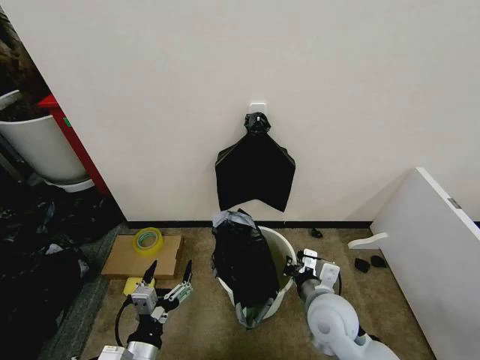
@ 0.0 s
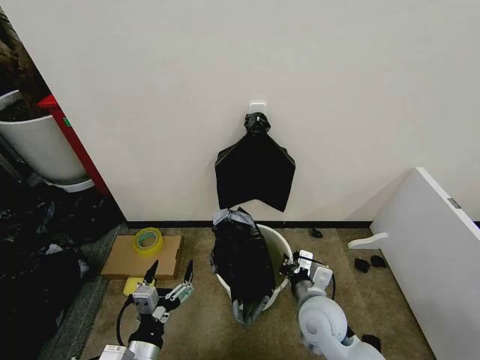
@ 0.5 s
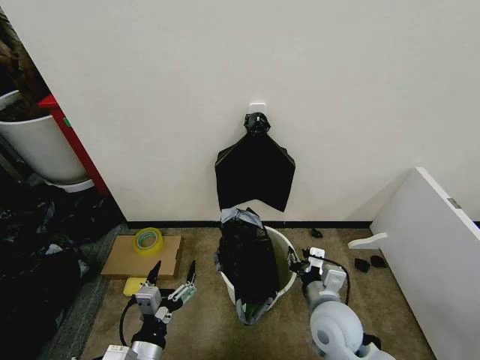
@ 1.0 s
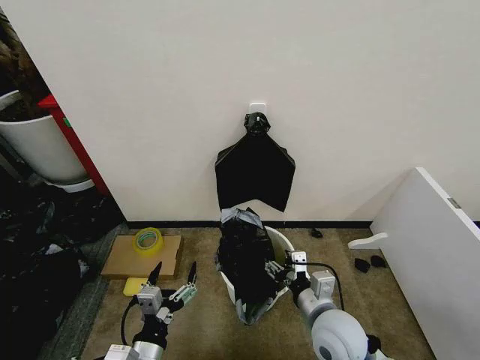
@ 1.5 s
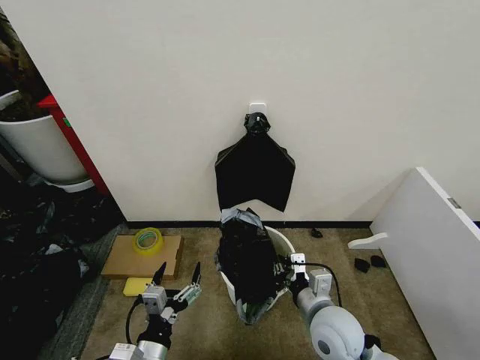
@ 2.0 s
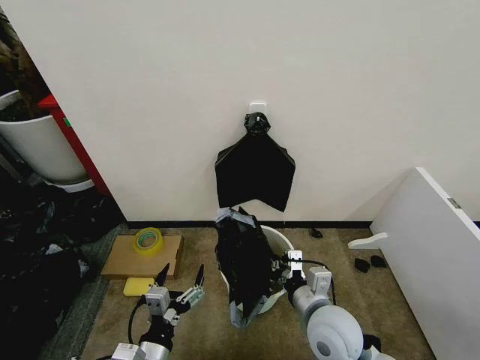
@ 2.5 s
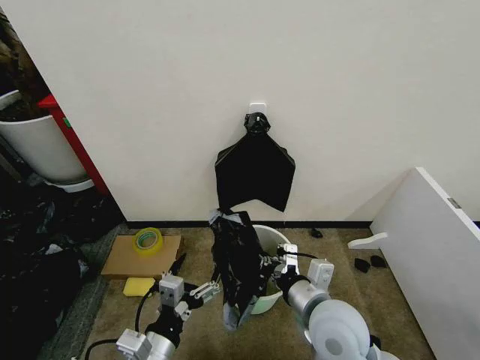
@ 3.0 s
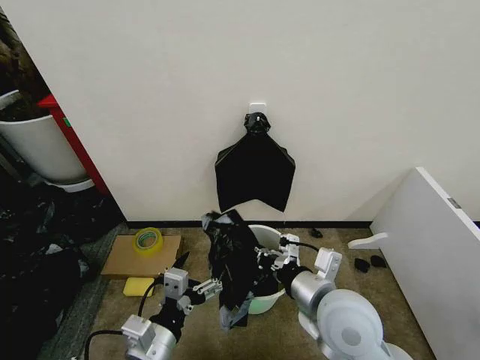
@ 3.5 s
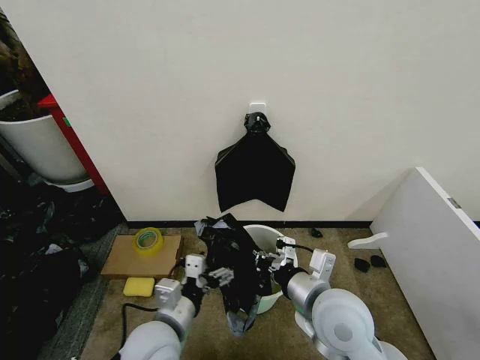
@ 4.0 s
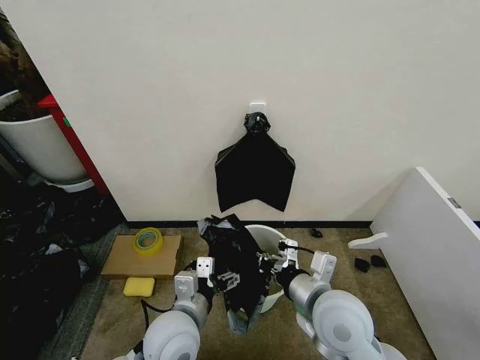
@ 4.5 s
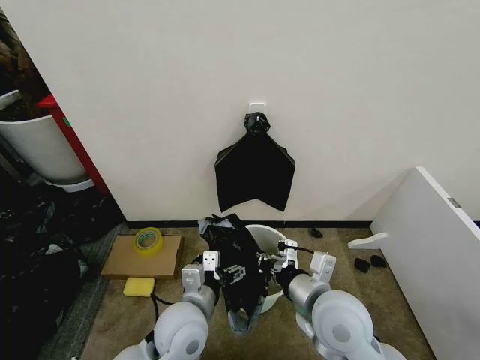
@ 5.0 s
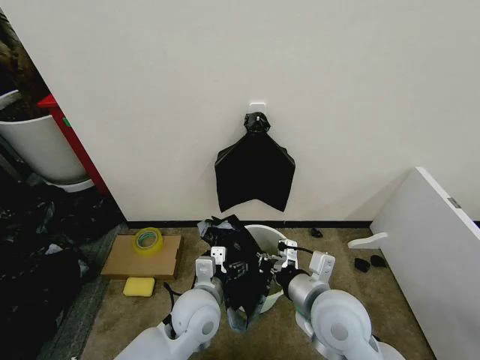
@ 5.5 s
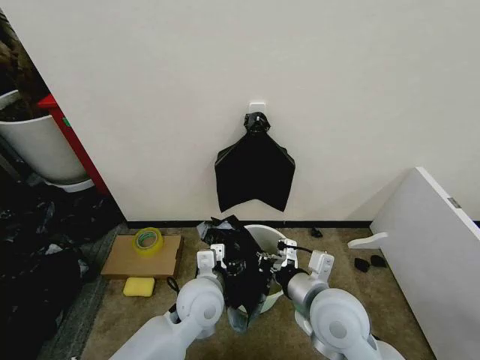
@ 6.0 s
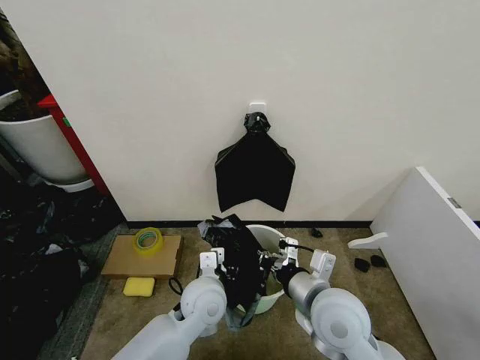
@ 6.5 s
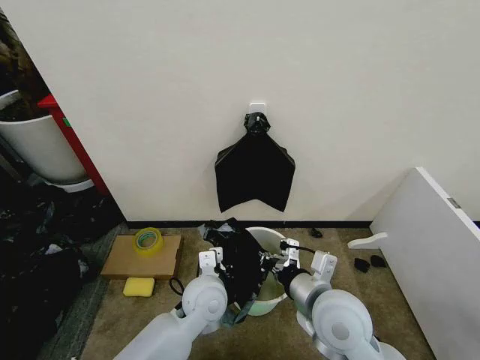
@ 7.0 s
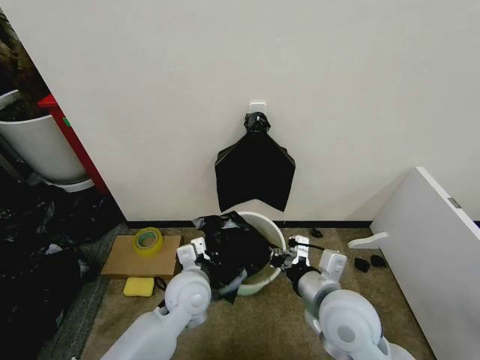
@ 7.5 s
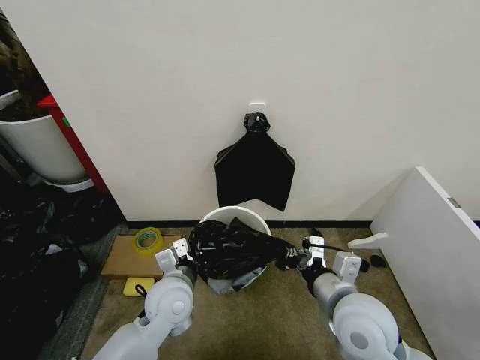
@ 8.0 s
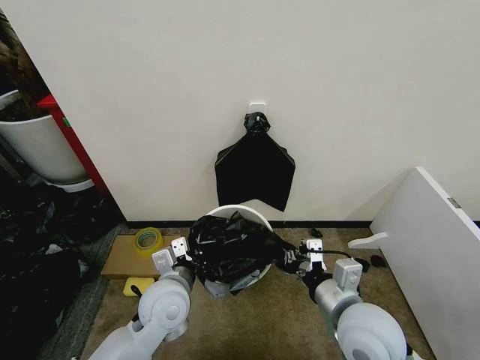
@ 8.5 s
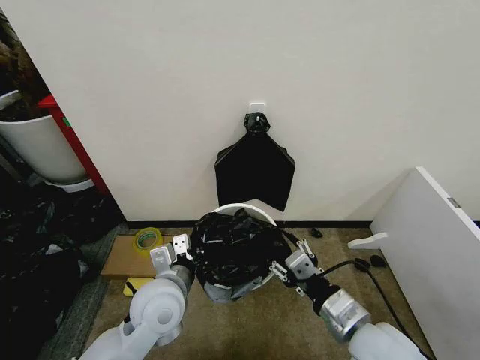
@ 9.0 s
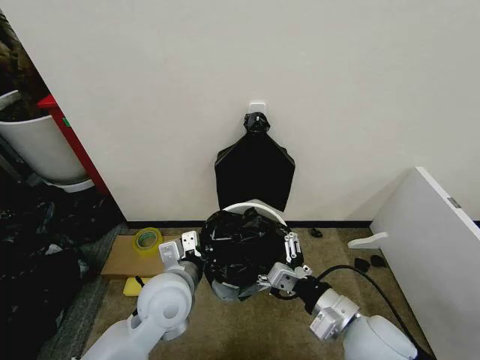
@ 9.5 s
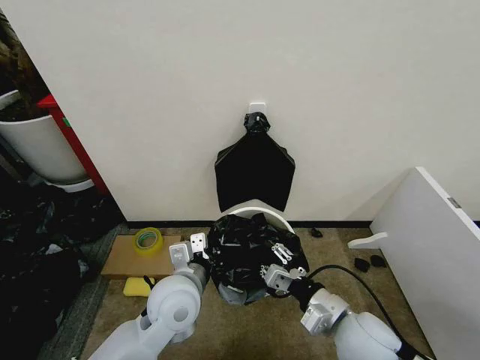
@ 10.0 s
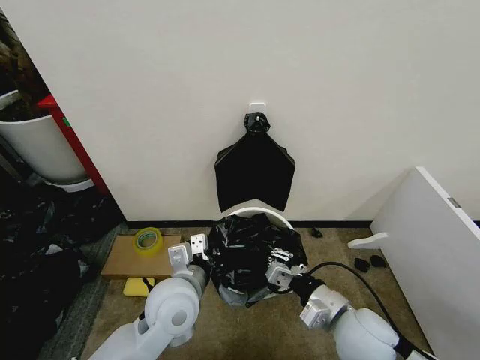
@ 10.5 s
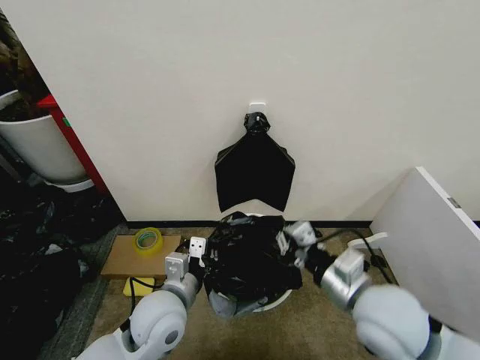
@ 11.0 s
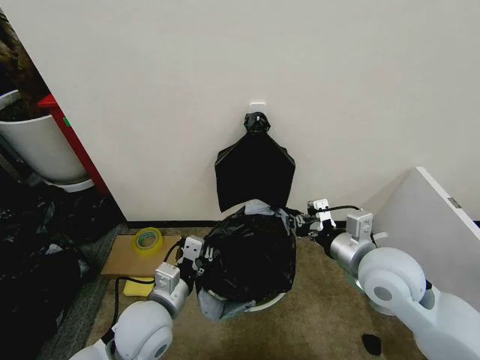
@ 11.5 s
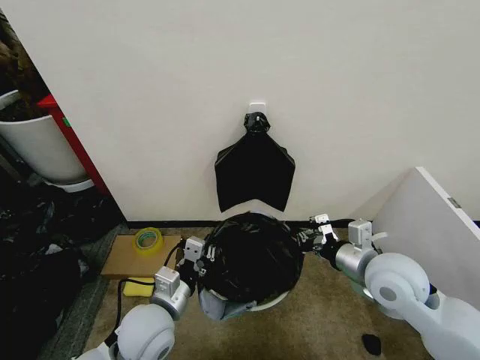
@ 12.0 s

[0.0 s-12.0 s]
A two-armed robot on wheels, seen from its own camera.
Task of the whole recording: Place the garbage bag over the trash bin.
0.0 to 2.0 s: The right gripper opens, then closes again.
2.0 to 4.0 s: The left gripper is displaced forward and upward by about 10 cm; the right gripper is displaced upward by some 10 cm.
4.0 to 6.0 s: The left gripper moves forward and to the right, about 10 cm.
6.0 to 8.0 s: The left gripper is displaced to the left by about 5 cm, and closes its fingers.
8.0 to 10.0 s: The left gripper changes place by about 5 cm; the right gripper opens up.
10.0 to 12.0 s: The right gripper shifts roughly 10 cm forward, upward and to the right, while the left gripper travels to the left by about 5 cm.

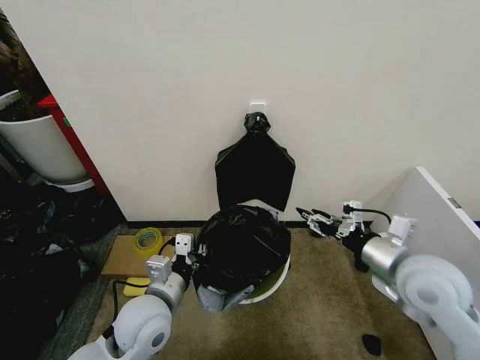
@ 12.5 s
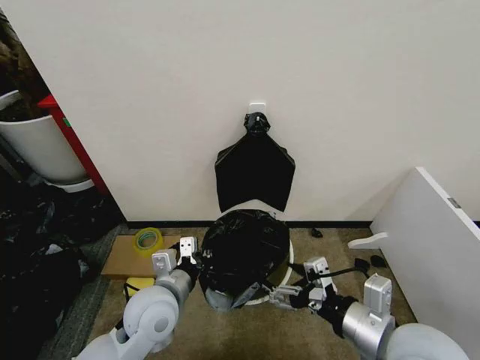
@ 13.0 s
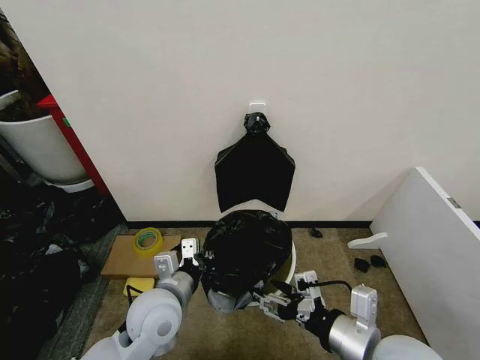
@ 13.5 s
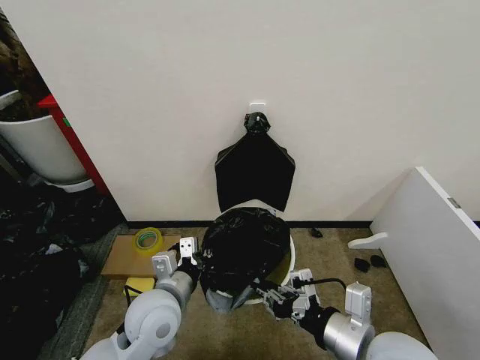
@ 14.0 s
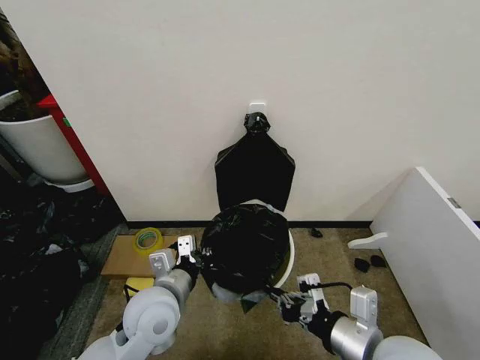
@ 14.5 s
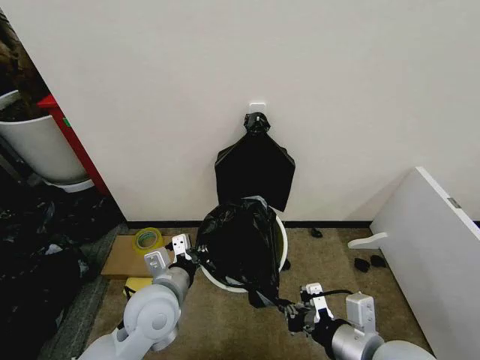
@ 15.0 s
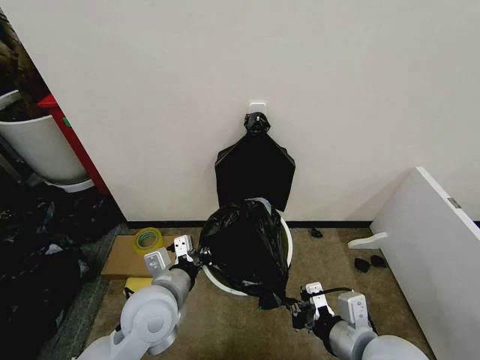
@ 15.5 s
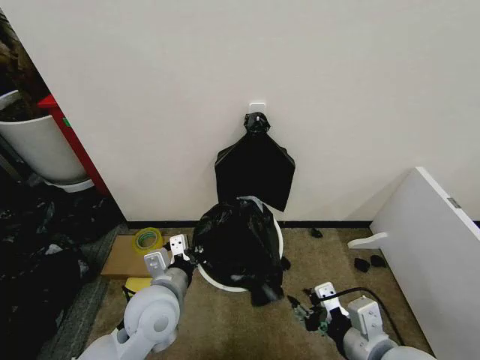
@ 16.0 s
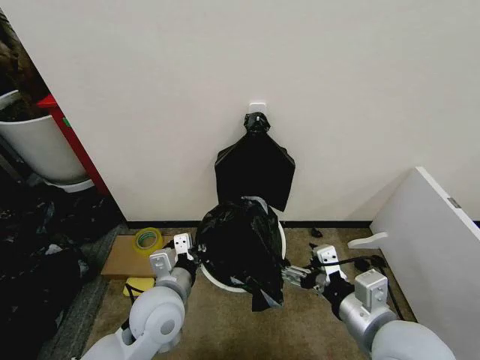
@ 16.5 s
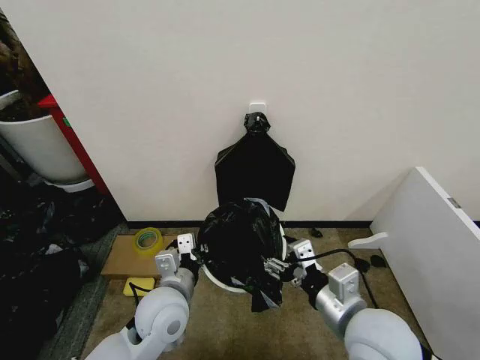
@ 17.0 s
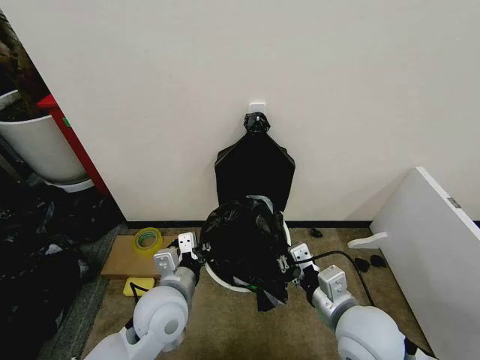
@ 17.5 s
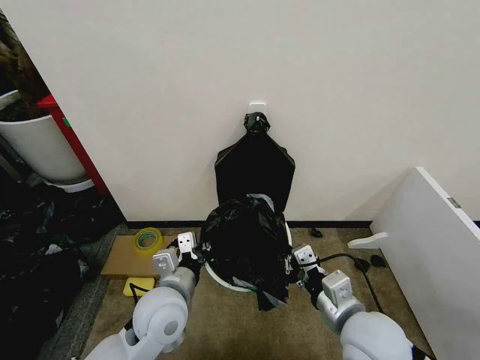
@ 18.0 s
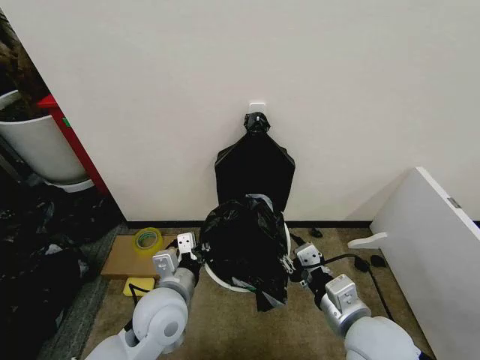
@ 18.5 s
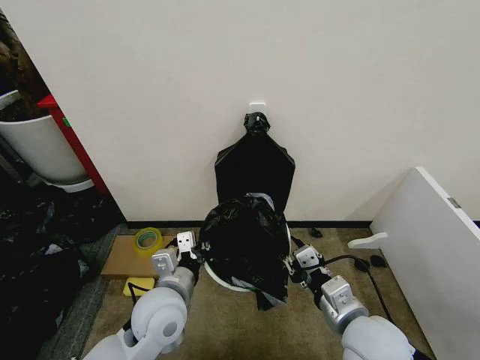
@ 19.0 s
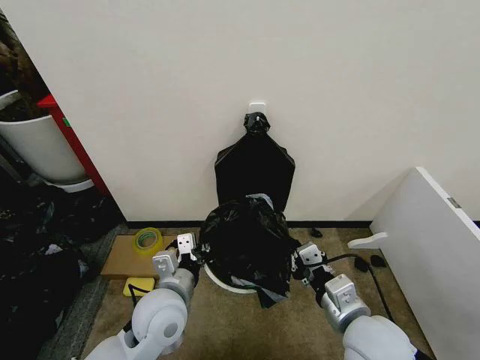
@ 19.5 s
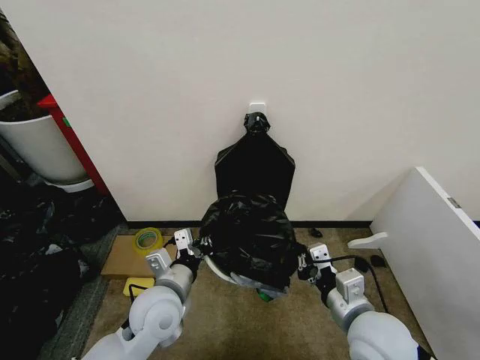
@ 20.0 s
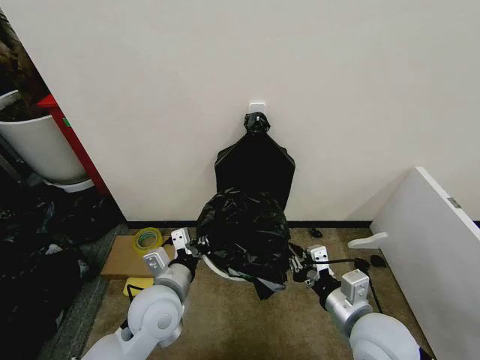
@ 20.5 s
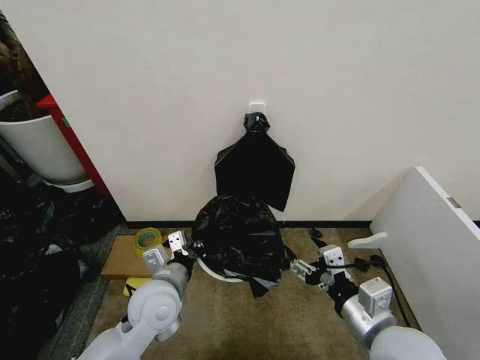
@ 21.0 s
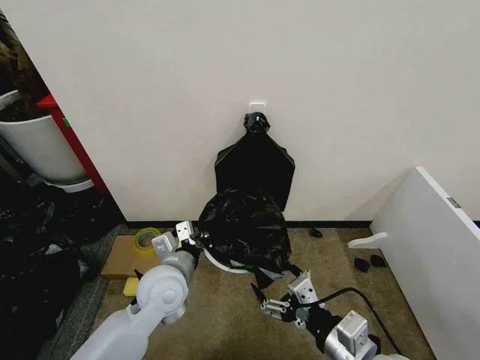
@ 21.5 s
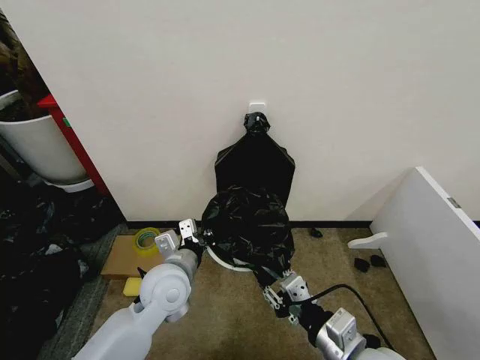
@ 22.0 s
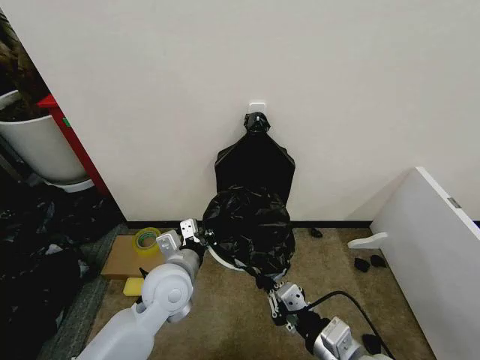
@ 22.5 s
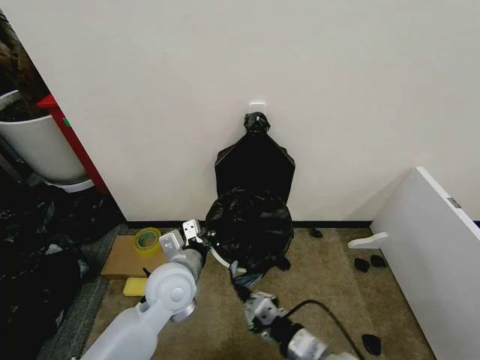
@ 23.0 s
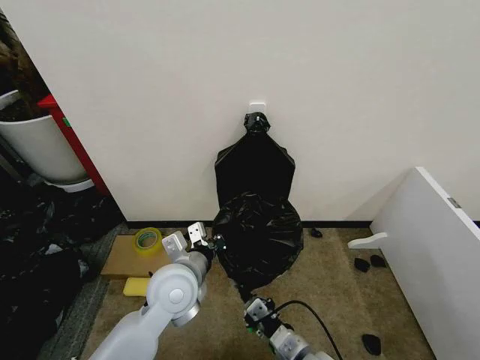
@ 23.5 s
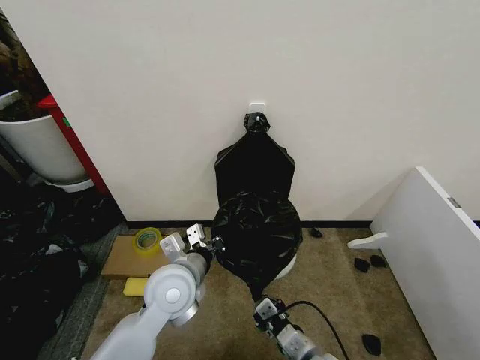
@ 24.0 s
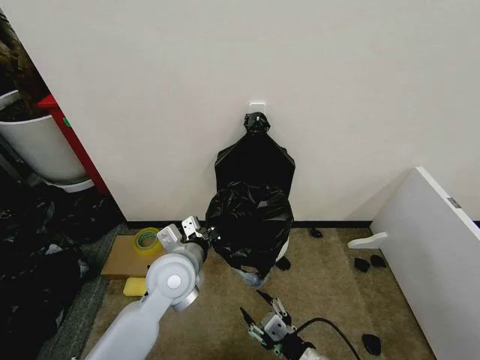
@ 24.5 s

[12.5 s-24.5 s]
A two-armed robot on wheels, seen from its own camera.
Task of the whole recording: Place the garbage bag over the trash bin.
12.5 to 14.5 s: The right gripper moves backward and to the left, about 15 cm, and closes up.
14.5 to 16.5 s: The right gripper opens up.
16.5 to 18.5 s: The right gripper shifts by roughly 5 cm, and closes.
20.5 to 22.5 s: The right gripper travels backward by about 5 cm, and opens and closes again.
22.5 to 24.5 s: The right gripper is displaced downward by roughly 10 cm, and opens its fingers.

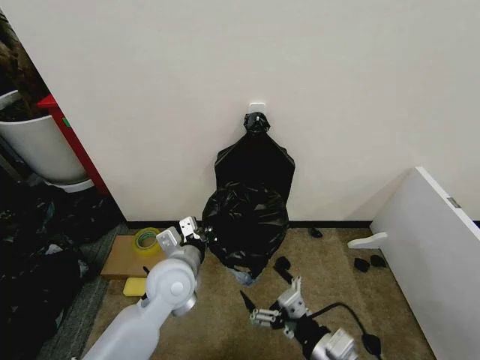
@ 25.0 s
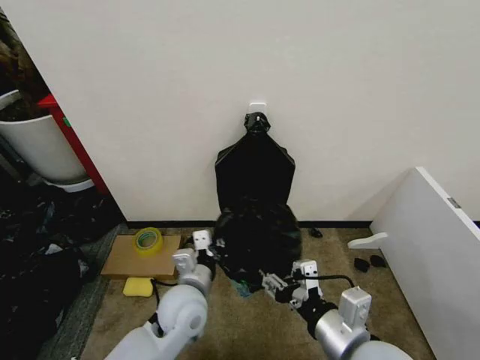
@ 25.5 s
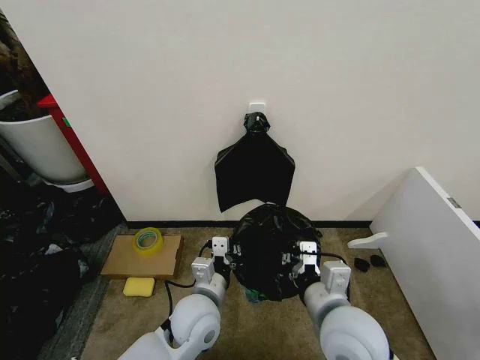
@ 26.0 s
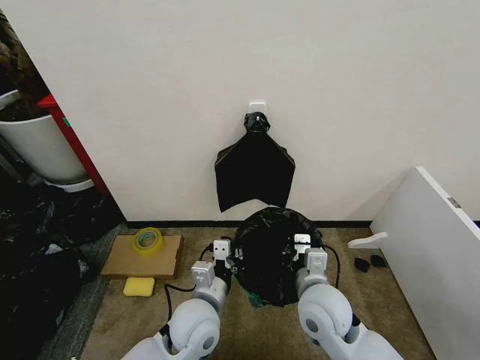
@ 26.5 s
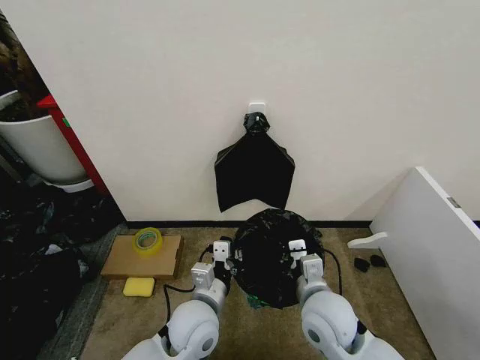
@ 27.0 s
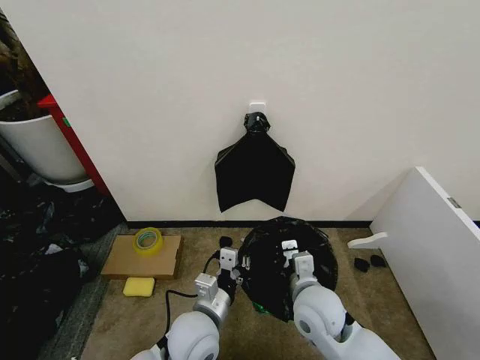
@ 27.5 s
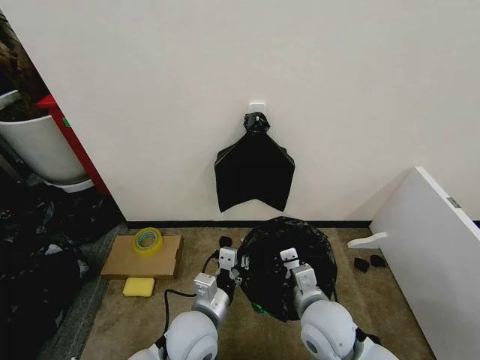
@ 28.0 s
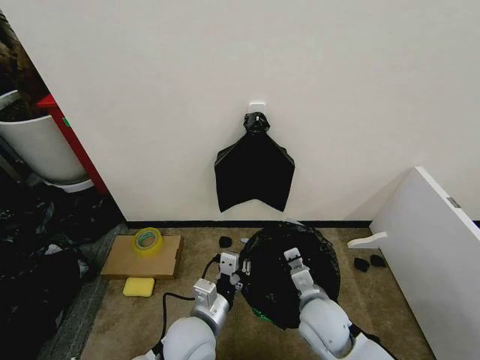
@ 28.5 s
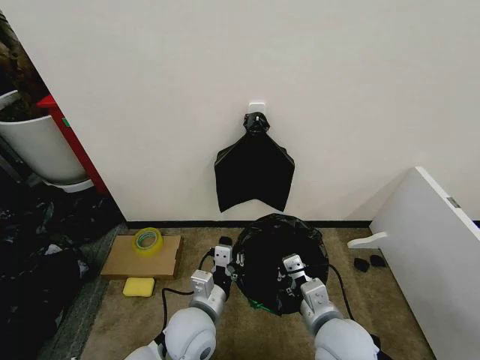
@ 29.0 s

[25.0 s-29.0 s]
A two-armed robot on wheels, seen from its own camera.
Task of the whole recording: Place the garbage bag over the trash bin.
25.0 to 27.0 s: The right gripper heads forward, covering about 10 cm, and closes its fingers; the left gripper goes about 10 cm backward and downward.
27.0 to 29.0 s: The right gripper changes place by approximately 5 cm.
